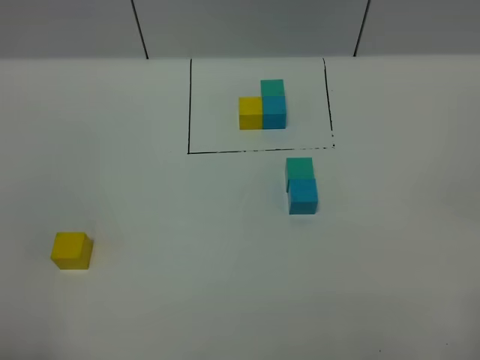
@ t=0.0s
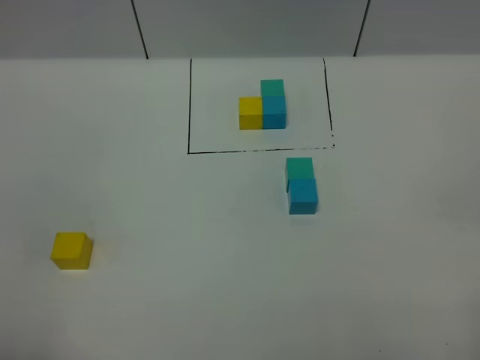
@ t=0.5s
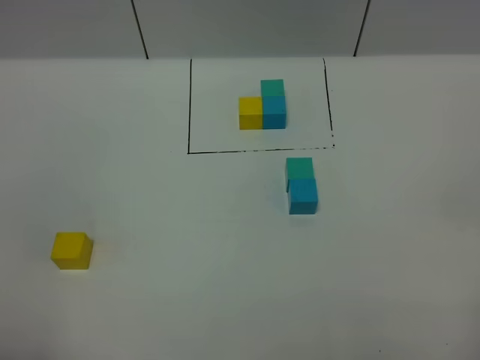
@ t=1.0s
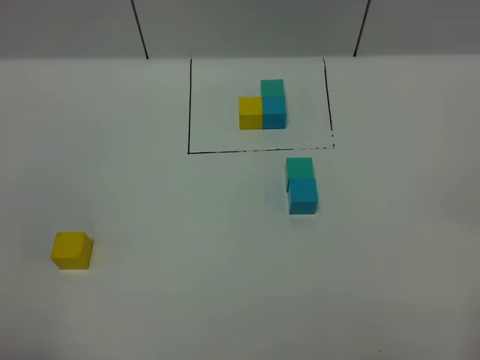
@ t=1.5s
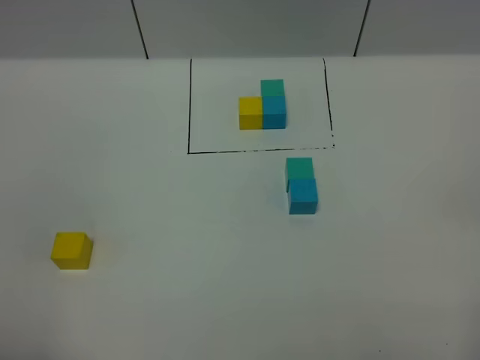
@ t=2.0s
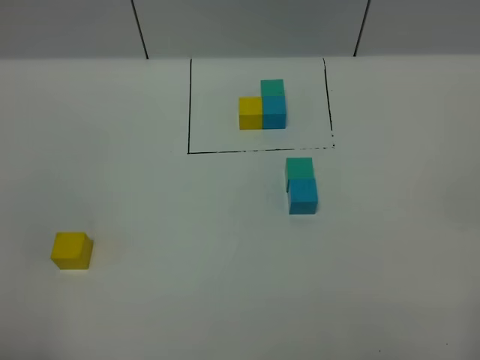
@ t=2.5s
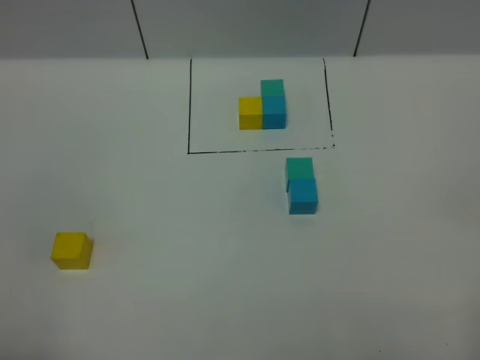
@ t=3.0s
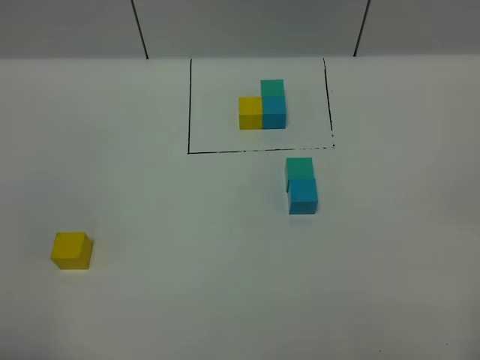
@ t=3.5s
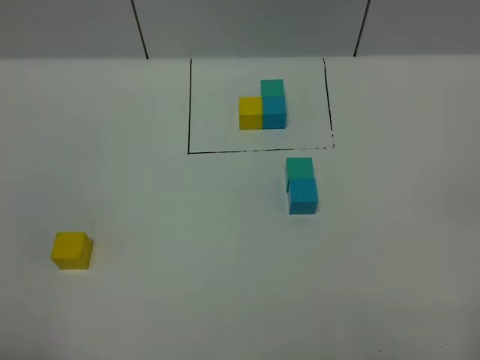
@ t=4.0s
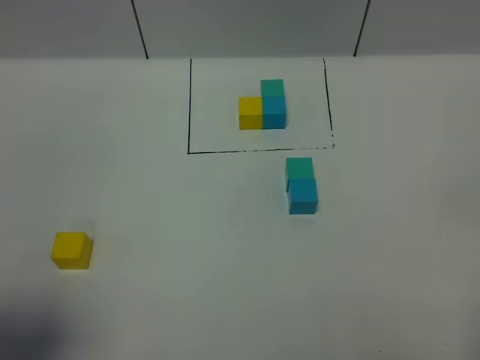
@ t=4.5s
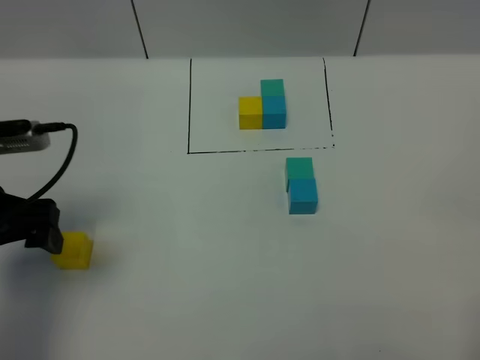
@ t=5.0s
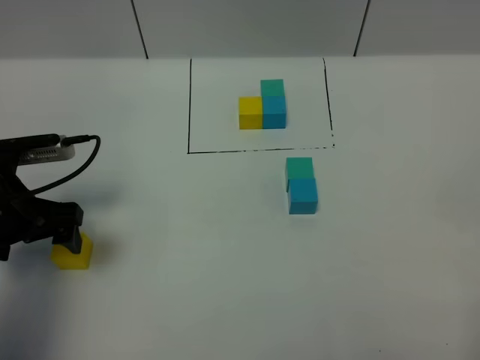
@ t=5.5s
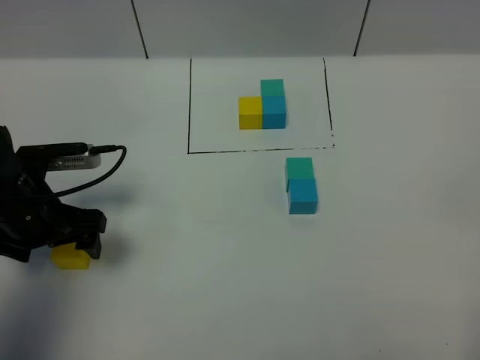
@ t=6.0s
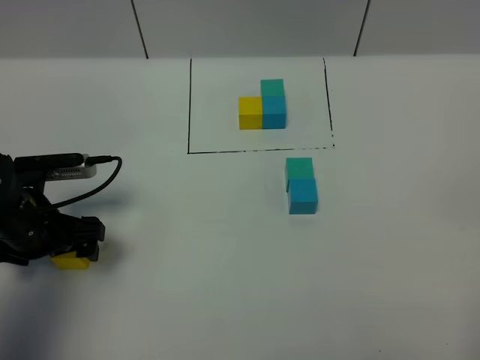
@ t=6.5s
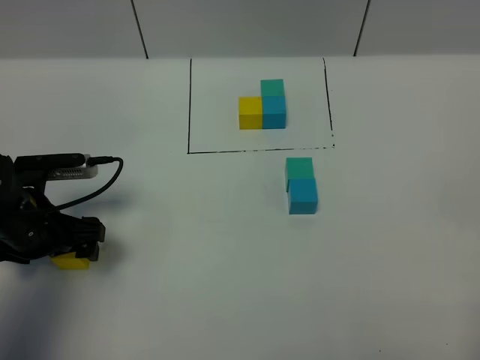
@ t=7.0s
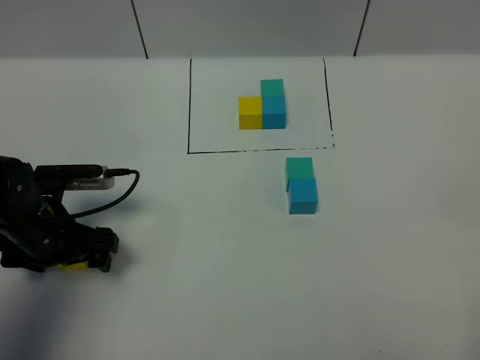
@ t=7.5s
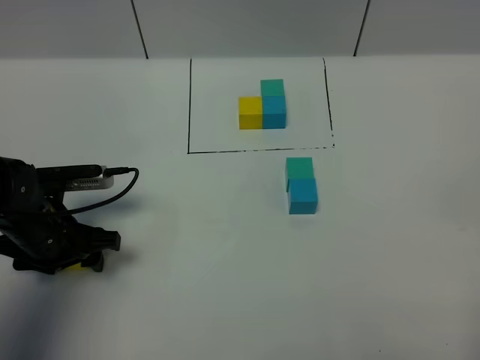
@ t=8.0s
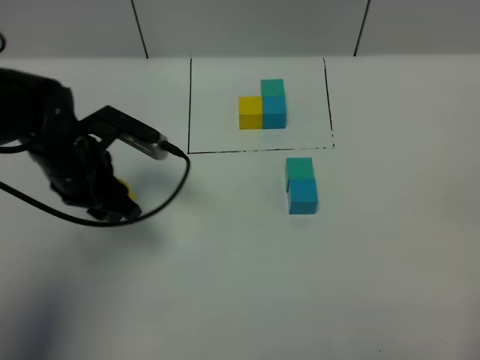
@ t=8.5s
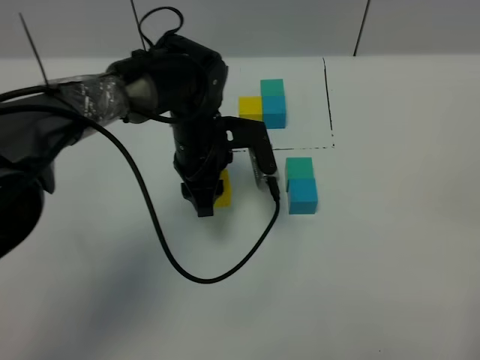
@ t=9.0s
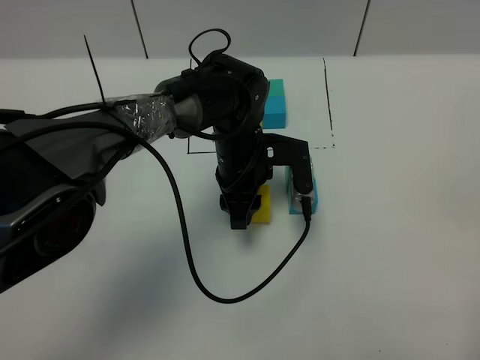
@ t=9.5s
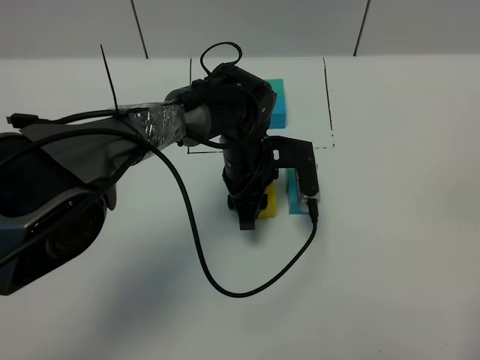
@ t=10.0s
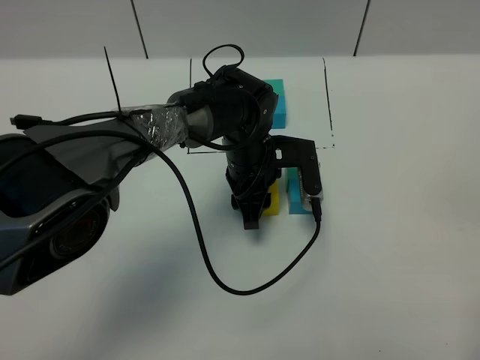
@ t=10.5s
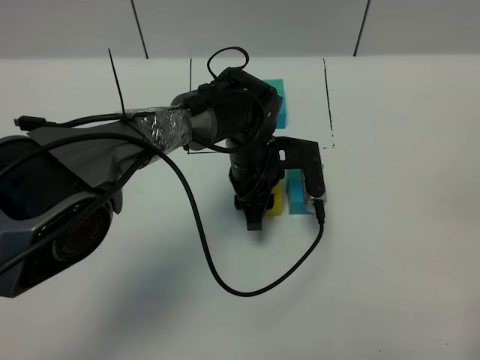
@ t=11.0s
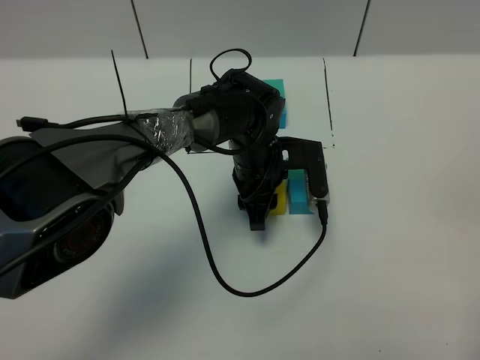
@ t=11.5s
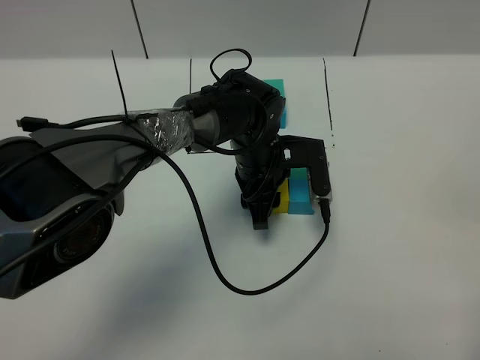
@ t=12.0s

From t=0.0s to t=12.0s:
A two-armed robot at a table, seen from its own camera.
Task of the whole recording: According to the building block template in front, assemble the scattered blocks together.
From t=2.0s to t=4.0s: Both grippers stay put.
From t=4.0s to t=6.0s: The left gripper goes approximately 30 cm forward and downward.
From t=6.0s to t=8.0s: The left gripper closes.
From t=8.0s to t=10.0s: The left gripper is displaced to the right and forward by about 25 cm.
From t=10.0s to t=12.0s: Neither gripper changes place.

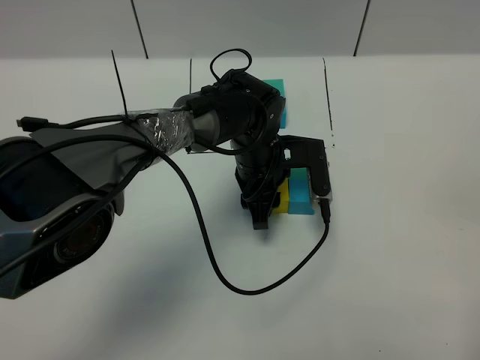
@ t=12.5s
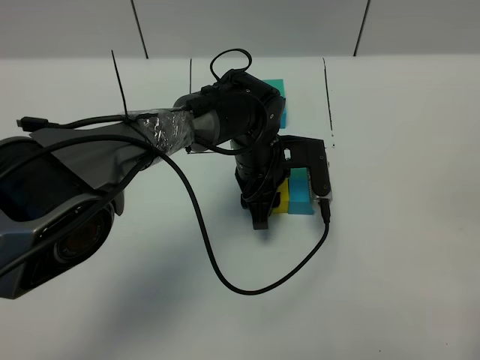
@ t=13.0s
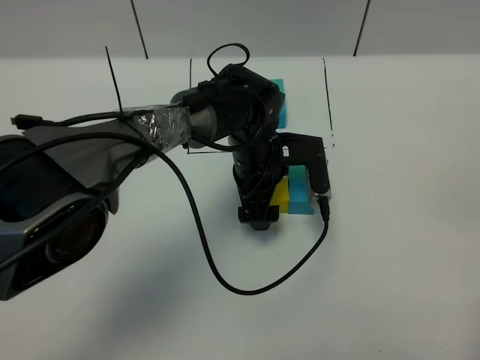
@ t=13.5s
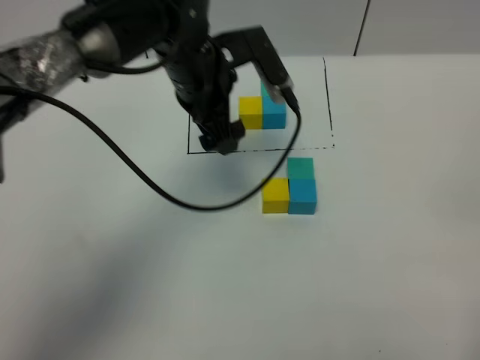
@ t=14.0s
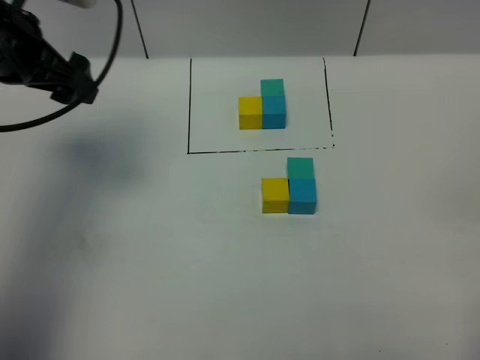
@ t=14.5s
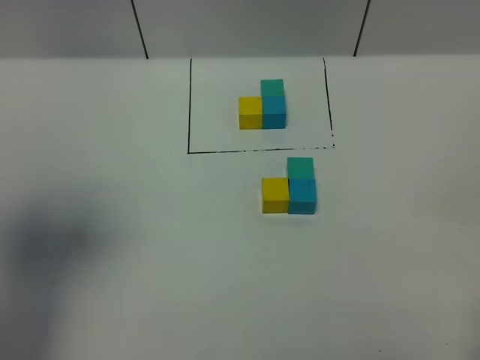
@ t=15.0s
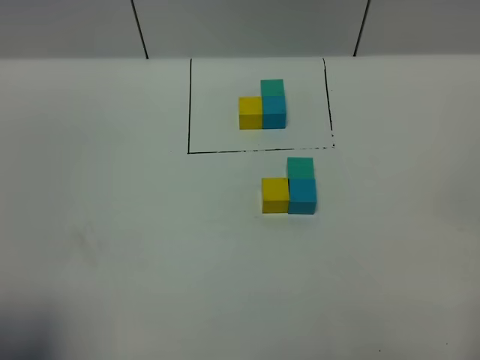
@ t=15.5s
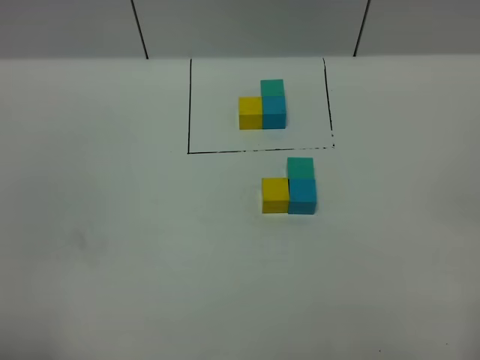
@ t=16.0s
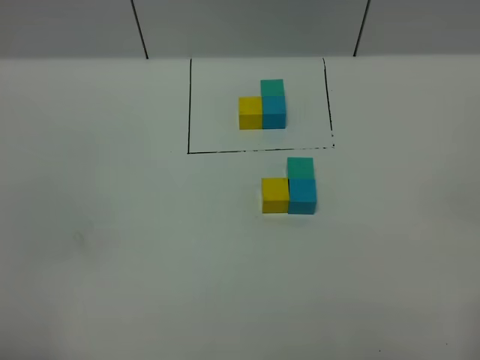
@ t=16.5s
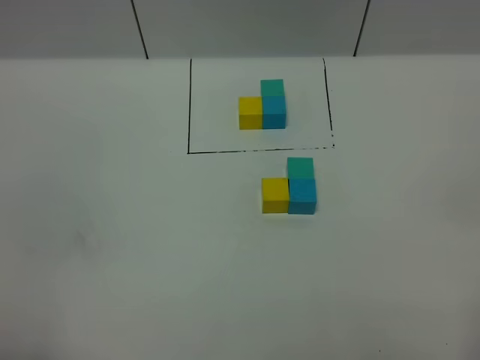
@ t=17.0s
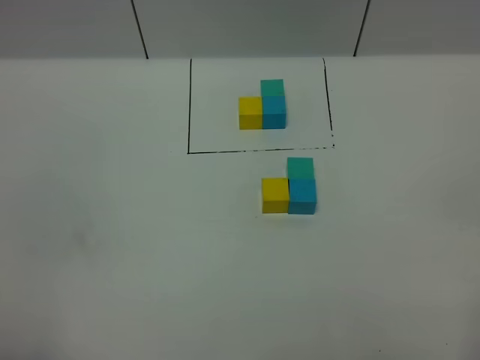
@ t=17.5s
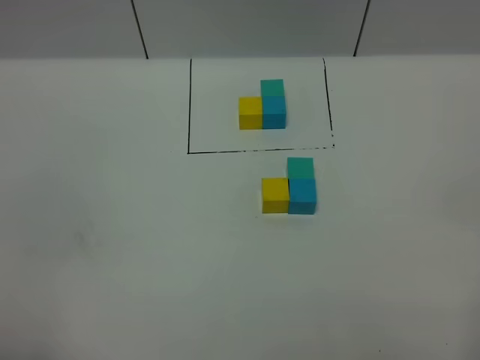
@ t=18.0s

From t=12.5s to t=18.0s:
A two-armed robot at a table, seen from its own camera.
Task of the whole recording: According to the building block template in front, assemble the scattered blocks together.
From t=12.5s to t=14.5s: The left gripper is displaced to the left and upward by some 35 cm, and opens up.
From t=14.5s to t=16.0s: The left gripper travels backward by some 35 cm.
